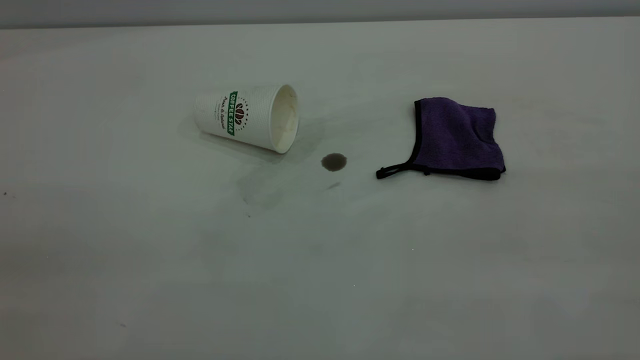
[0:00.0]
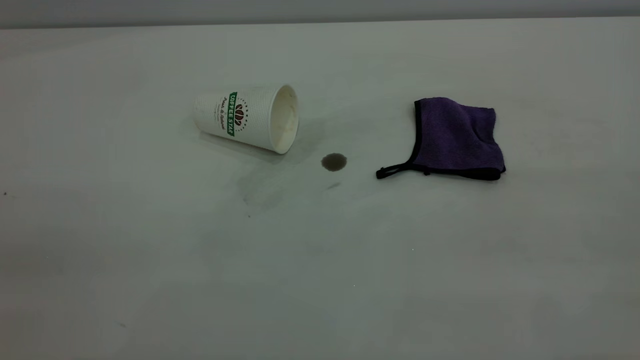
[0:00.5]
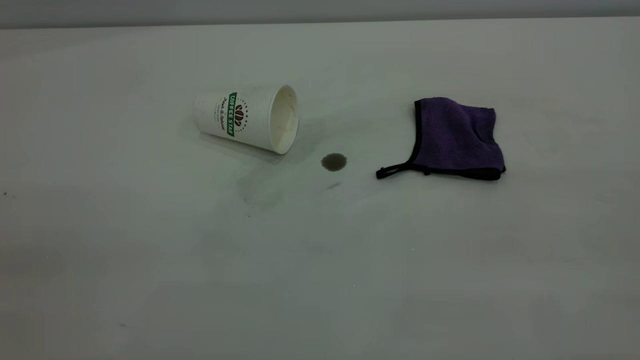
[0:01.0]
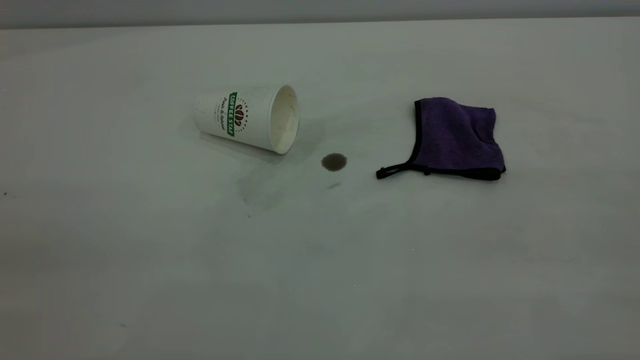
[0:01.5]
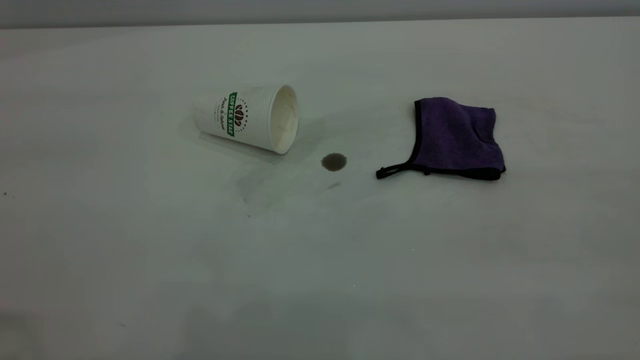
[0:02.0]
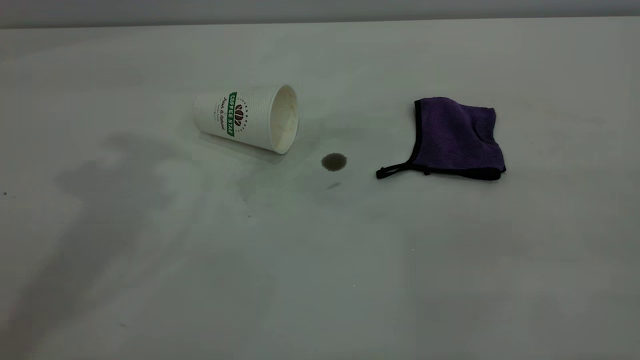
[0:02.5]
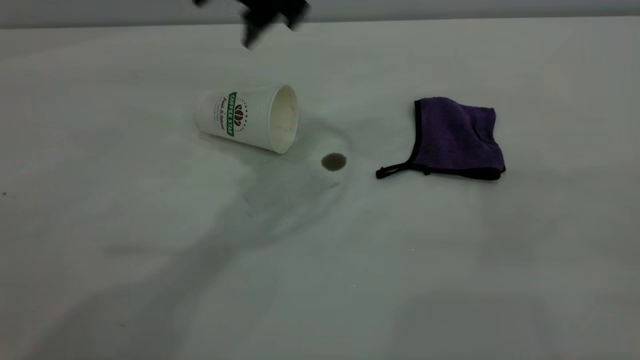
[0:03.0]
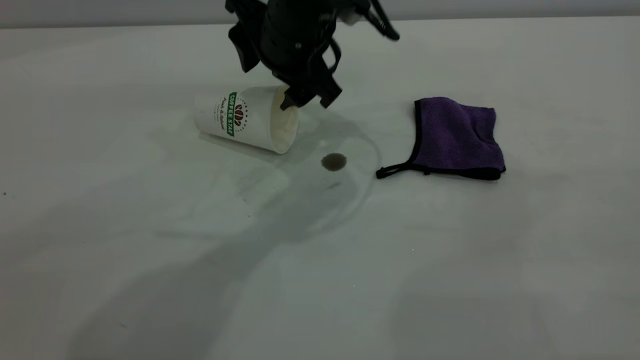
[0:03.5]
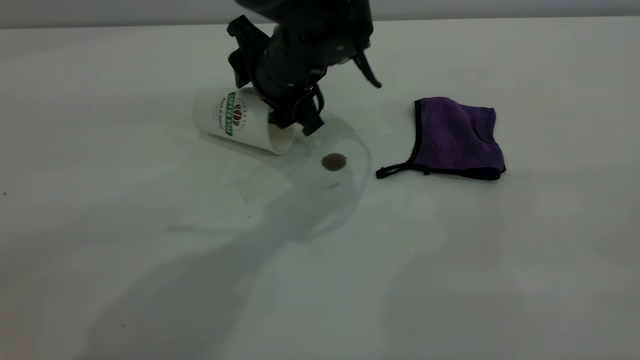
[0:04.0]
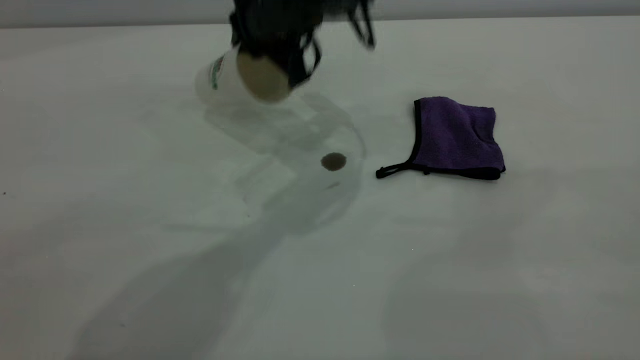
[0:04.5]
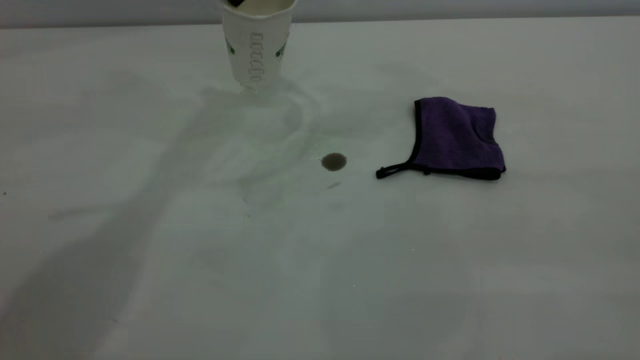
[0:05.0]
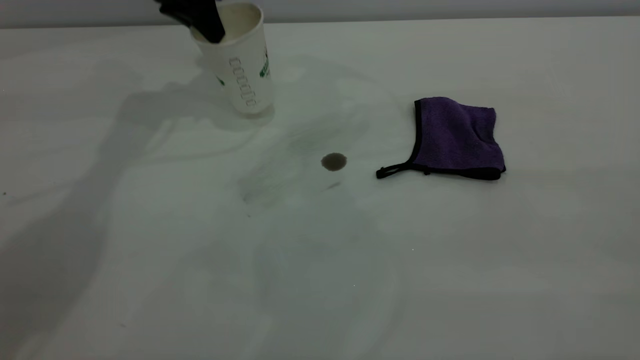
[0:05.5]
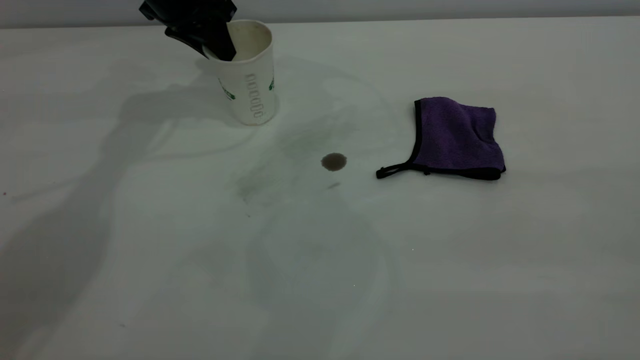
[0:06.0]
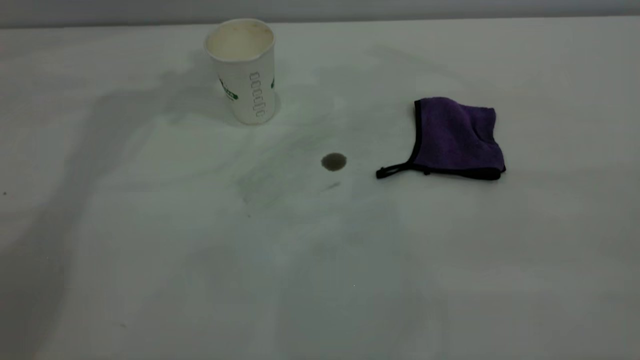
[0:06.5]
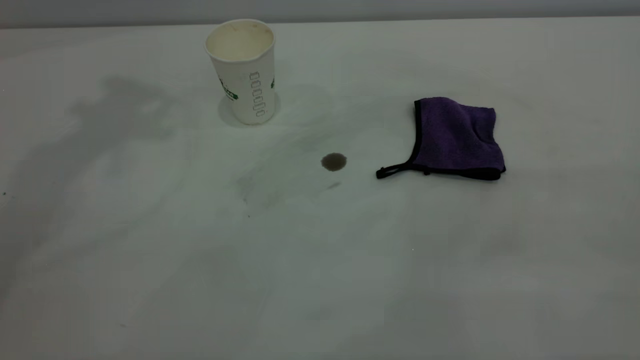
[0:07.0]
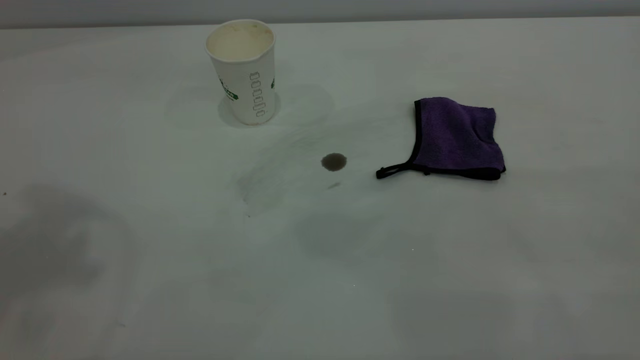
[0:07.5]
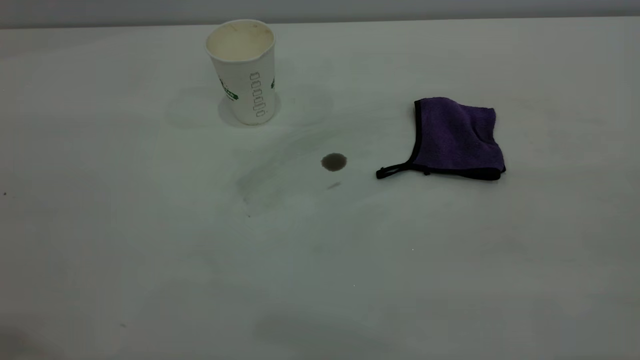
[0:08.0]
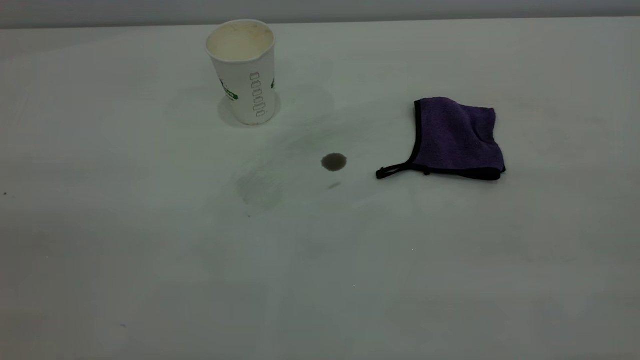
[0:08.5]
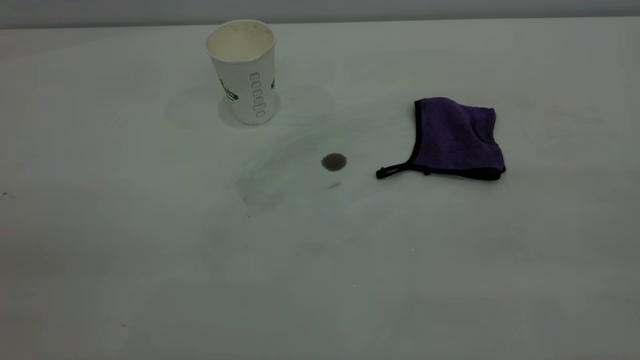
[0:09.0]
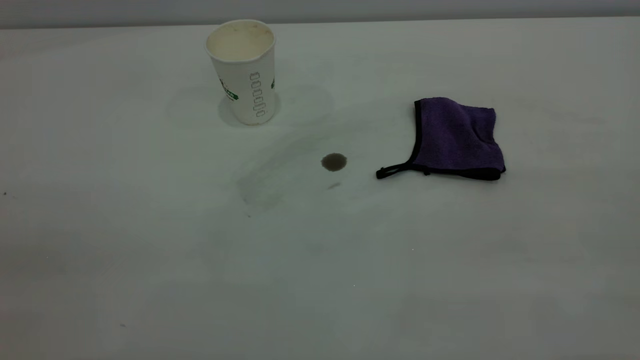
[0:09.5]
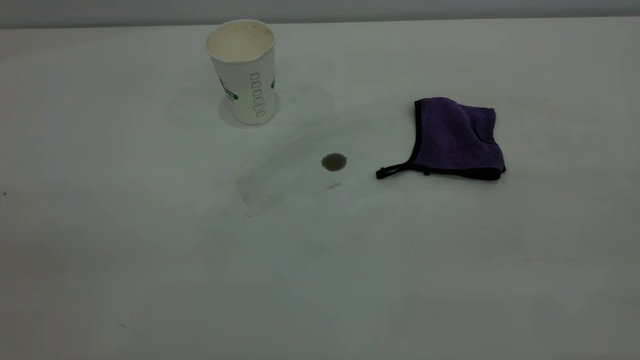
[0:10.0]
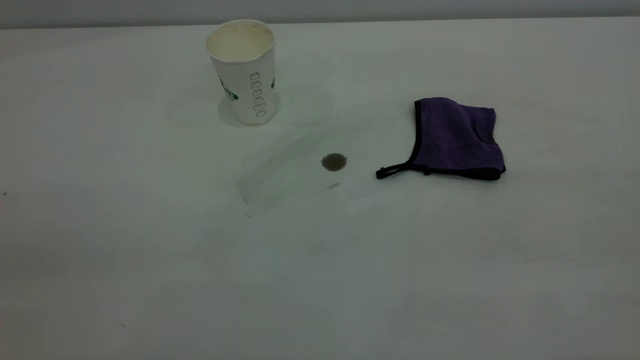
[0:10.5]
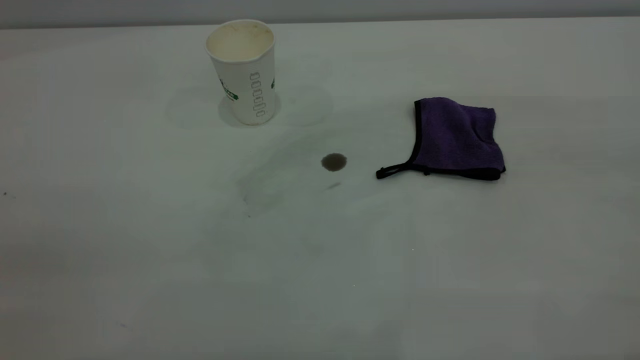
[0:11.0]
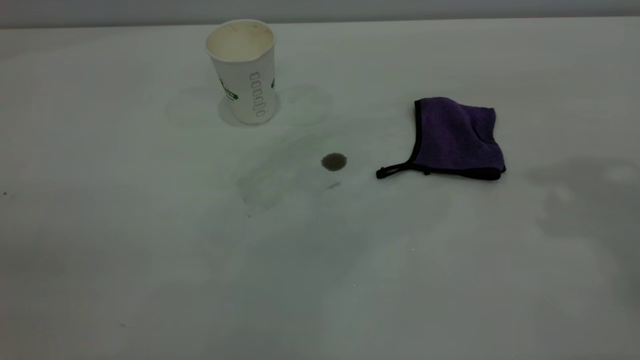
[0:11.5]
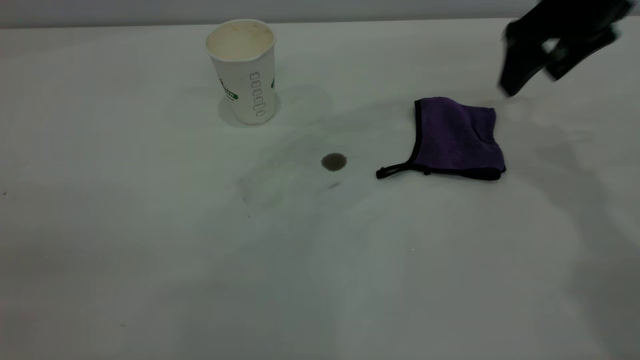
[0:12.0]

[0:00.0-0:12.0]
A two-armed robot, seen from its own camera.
Task of the whole recording: the left gripper pick up the fallen cup and place it upright, the right gripper grasp the purple rag and wipe the coffee stain on the table, the right gripper put the purple rag back in its original position.
Step, 0:00.0 to 0:06.0: Stand the paper cup upright.
0:02.0 to 0:04.0: The left gripper travels downward, to the right and forward by approximately 50 cm.
0:04.0 to 0:06.0: The left gripper is displaced to the left and forward by some 20 cm, and closes up.
0:06.0 to 0:08.0: The left gripper travels backward and upward by approximately 50 cm.
0:10.0 to 0:12.0: The right gripper goes about 50 cm forward and downward, and opens its fingers.

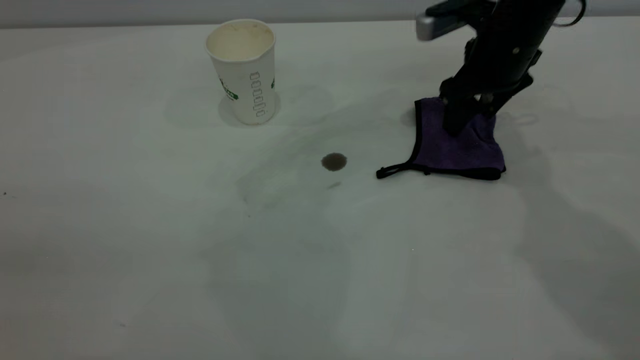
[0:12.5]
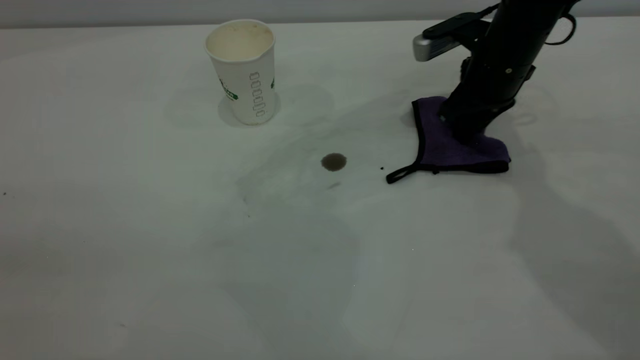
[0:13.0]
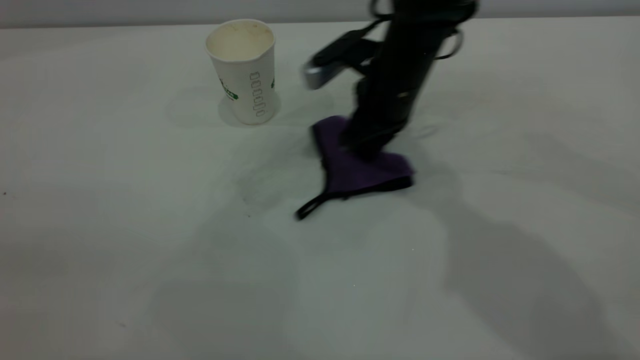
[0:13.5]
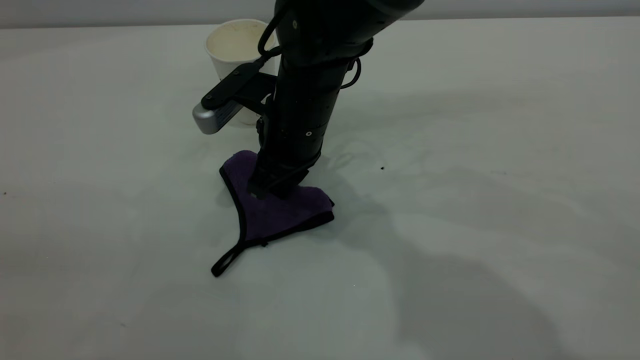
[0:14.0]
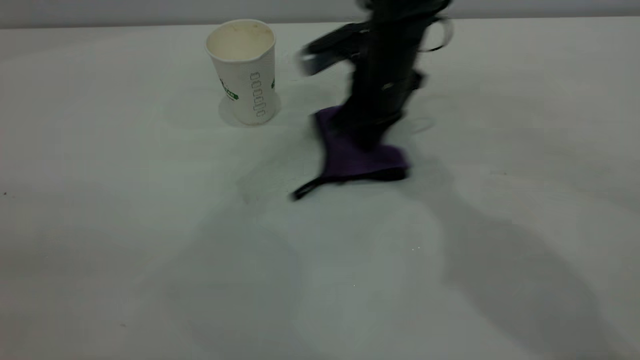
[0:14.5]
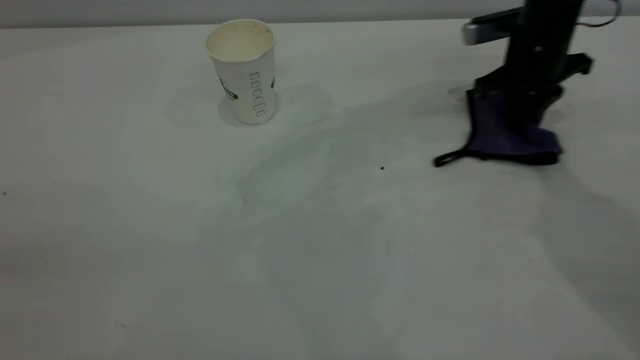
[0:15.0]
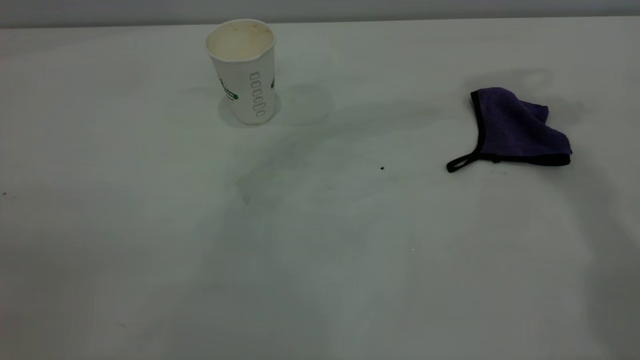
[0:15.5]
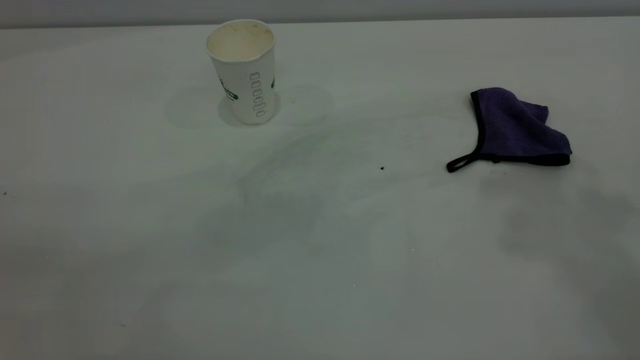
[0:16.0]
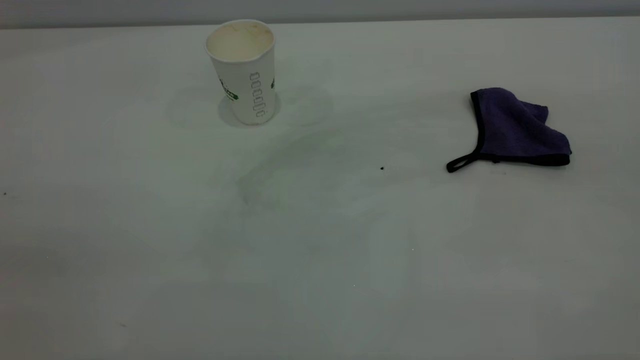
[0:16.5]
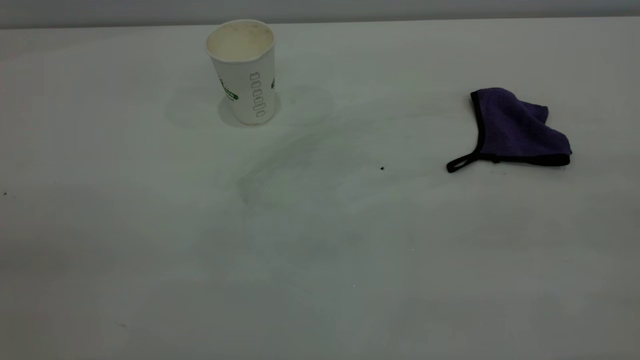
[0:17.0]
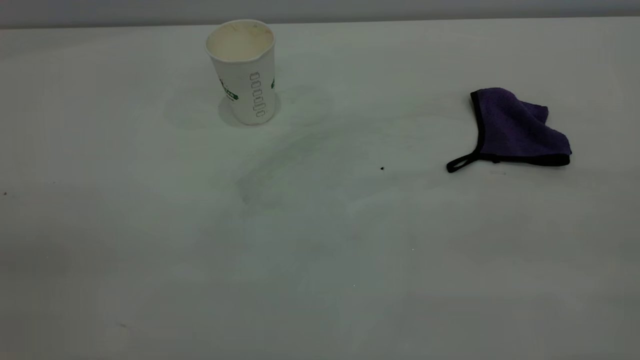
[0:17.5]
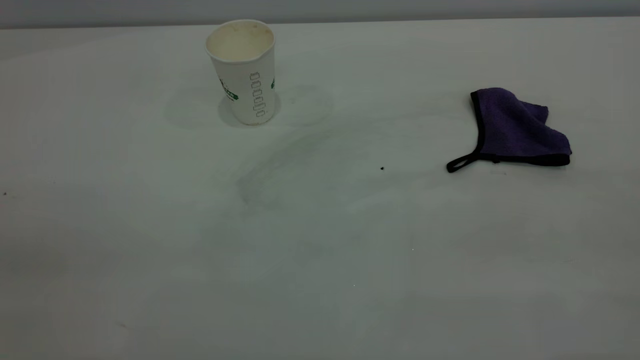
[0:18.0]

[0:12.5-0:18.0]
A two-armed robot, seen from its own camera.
Task of the whole recording: the left gripper pick up the fallen cup and place it upright, the right gripper grasp the purple rag and wipe the coffee stain on the table, the right gripper put the purple rag back in its original position.
Step, 0:12.5 to 0:15.0: Wipe the stains off the table with a rag.
0:12.5 to 0:14.5: The right gripper moves to the left, approximately 10 cm, and closes up.
0:14.5 to 0:16.0: The right gripper goes about 40 cm upward and backward, and opens up.
